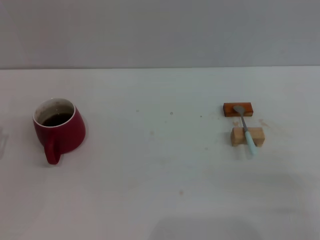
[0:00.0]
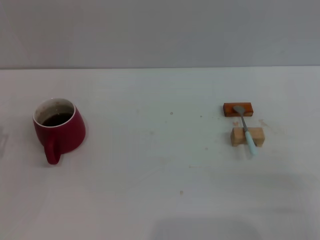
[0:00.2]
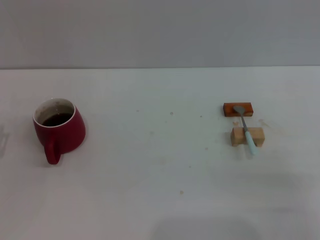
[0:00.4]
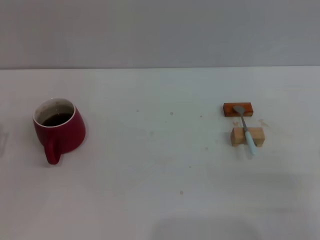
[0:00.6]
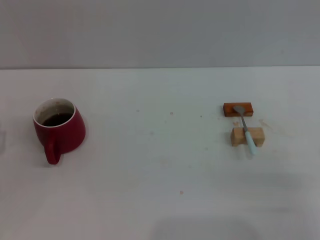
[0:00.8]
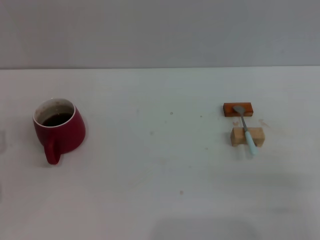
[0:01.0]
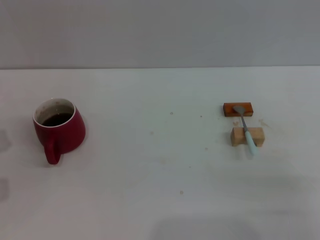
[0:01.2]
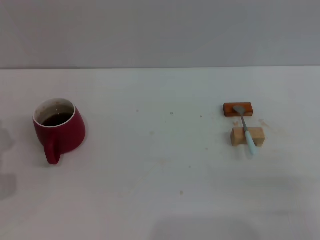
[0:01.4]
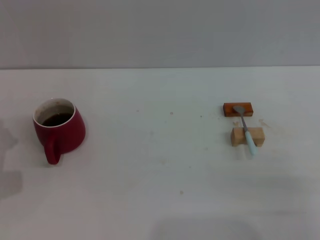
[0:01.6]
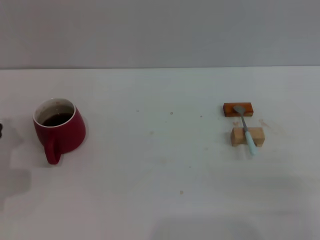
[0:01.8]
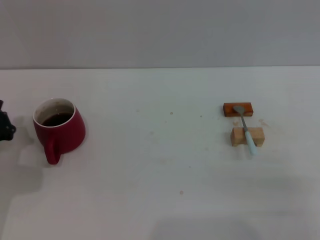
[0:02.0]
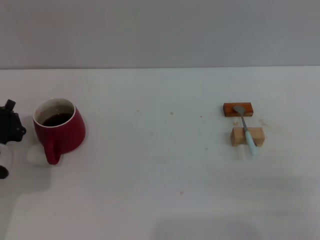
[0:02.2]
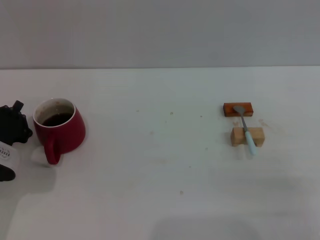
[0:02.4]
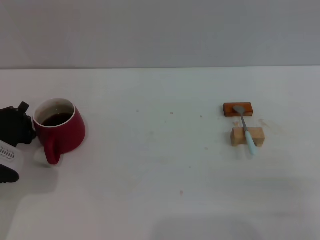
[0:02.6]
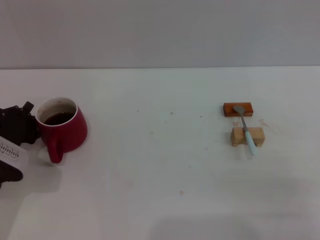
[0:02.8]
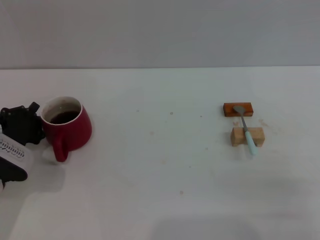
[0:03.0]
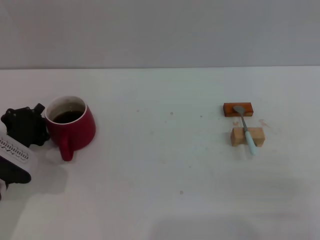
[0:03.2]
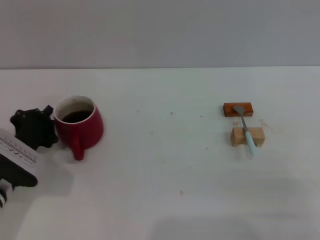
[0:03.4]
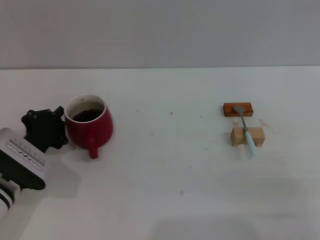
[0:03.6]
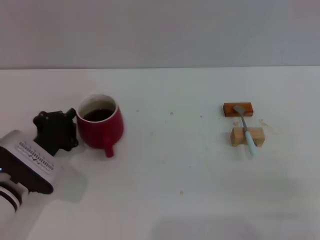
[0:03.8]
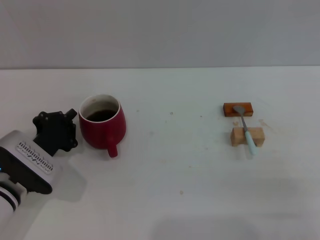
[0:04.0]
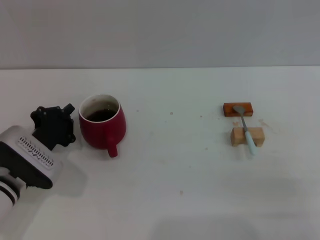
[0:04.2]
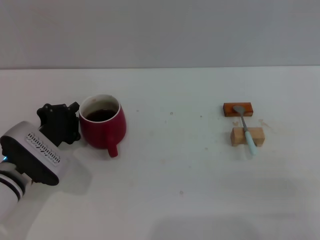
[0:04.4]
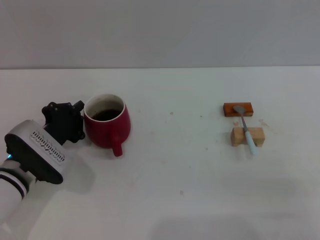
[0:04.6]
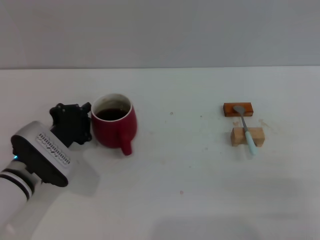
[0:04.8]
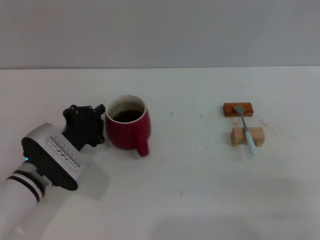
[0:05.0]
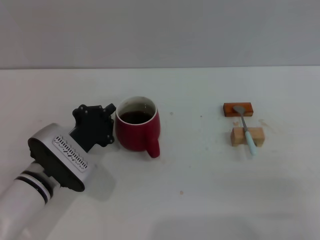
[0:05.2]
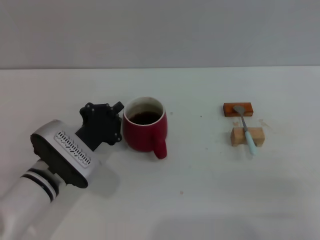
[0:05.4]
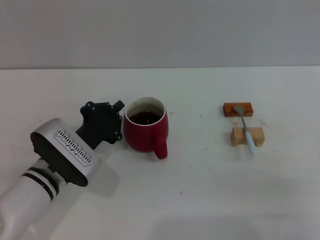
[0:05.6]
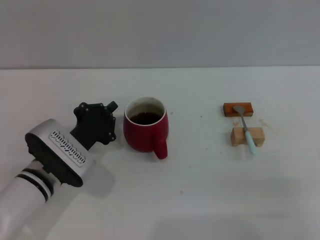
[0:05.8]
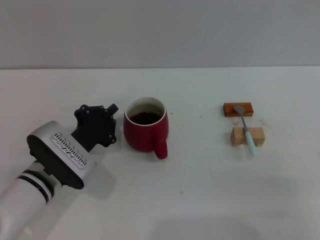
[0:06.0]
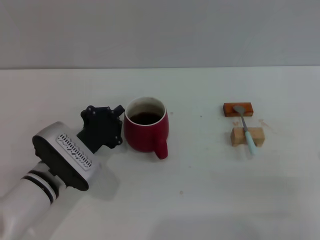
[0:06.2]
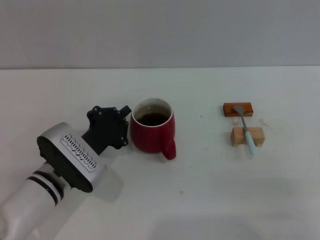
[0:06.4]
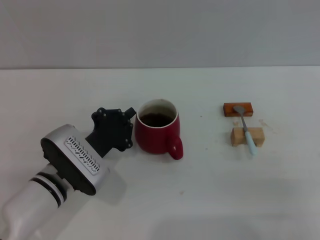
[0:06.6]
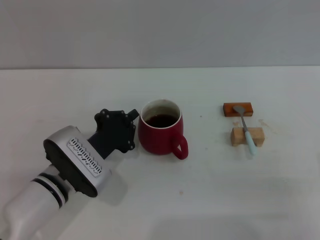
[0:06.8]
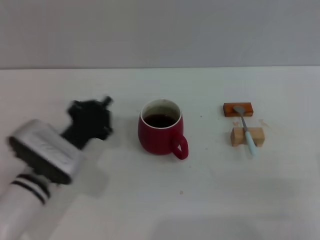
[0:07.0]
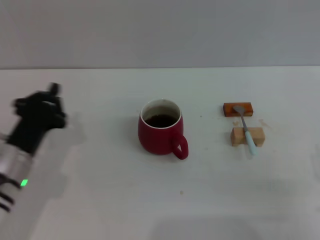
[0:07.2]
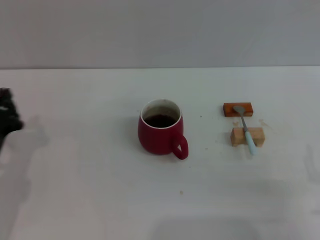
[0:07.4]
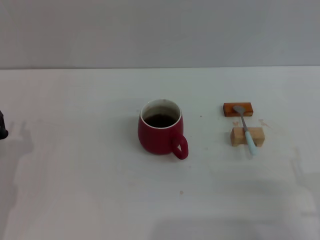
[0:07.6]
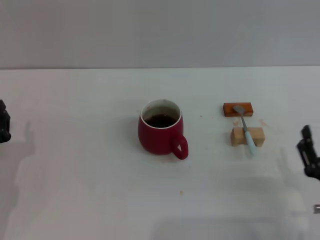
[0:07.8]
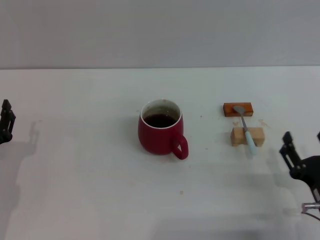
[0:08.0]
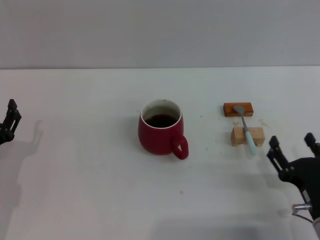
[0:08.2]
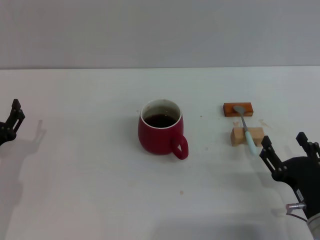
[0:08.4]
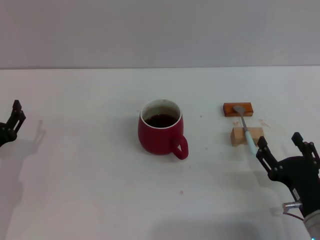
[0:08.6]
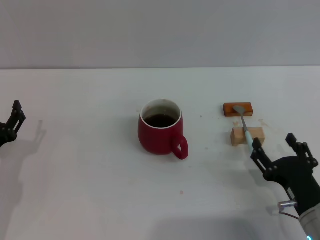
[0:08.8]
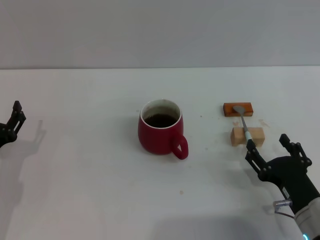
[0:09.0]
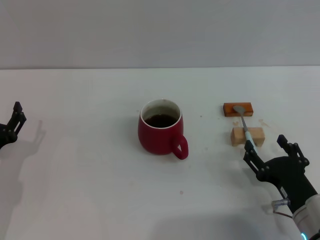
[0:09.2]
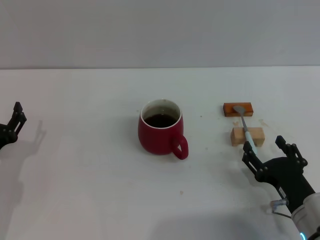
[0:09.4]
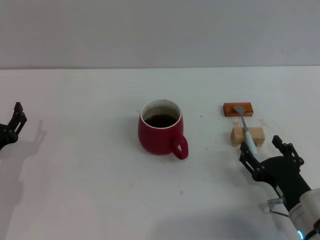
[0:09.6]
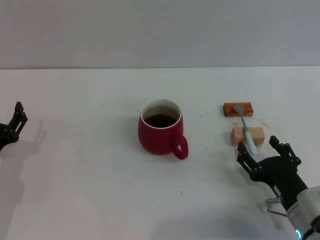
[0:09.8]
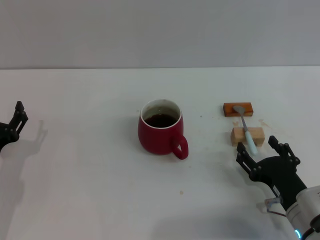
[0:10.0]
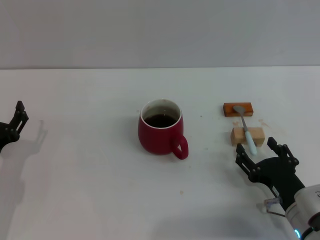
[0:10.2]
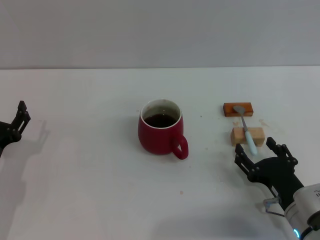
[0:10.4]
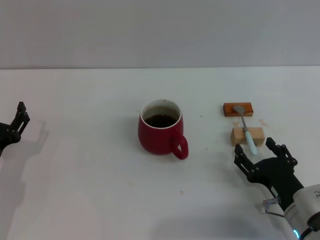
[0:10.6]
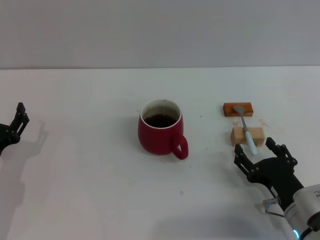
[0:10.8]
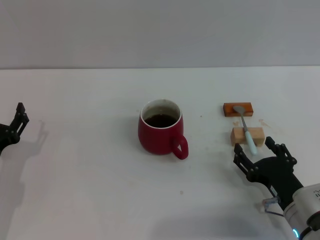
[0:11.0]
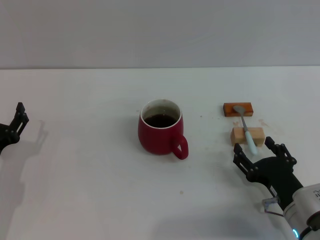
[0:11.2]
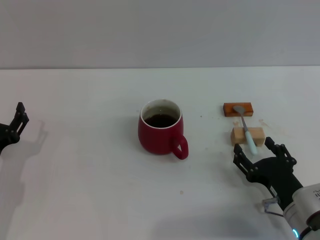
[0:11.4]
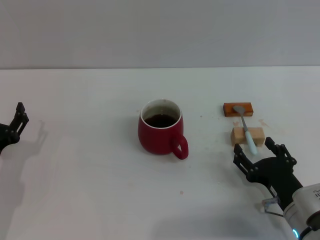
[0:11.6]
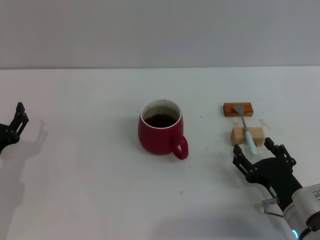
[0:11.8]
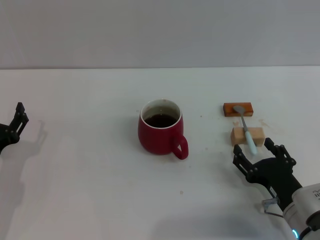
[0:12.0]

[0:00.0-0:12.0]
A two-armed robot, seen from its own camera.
Task of the whole recording: Move the red cup to the center, lift the blue spoon, stir it three times in the cup, and put the spoon into the cup.
Step, 0:00.0 to 0:07.0: Move the cup with coffee to the center of view with the left gripper.
0:03.0 to 0:04.4: The grippers move only a little.
0:04.4 to 0:06.0: The grippers stay close to where they were, moving slightly.
0:06.0 to 0:07.6: The left gripper goes some 10 cm to the left and backward.
0:07.6 to 0:09.0: The right gripper shifts by some 5 cm; the left gripper opens its fingers.
0:09.0 to 0:10.4: The grippers make only small movements.
0:10.4 to 0:12.0: The two grippers keep their place.

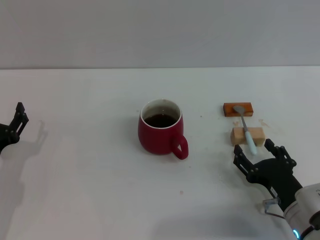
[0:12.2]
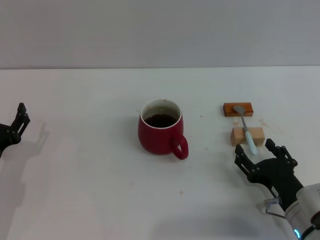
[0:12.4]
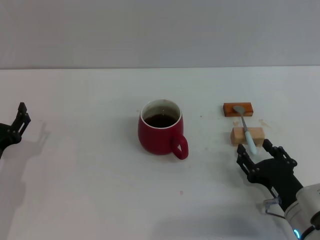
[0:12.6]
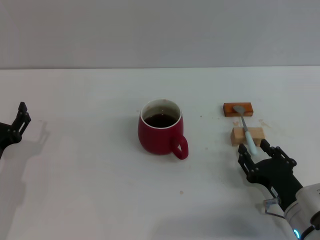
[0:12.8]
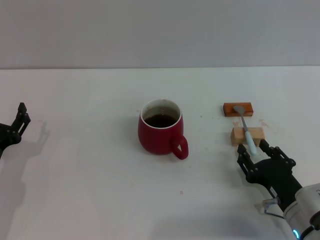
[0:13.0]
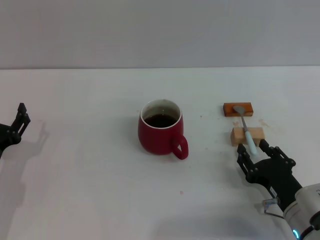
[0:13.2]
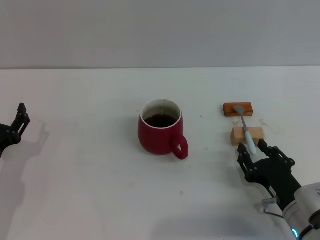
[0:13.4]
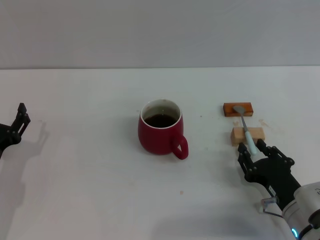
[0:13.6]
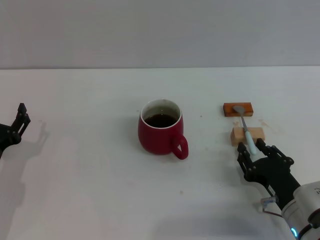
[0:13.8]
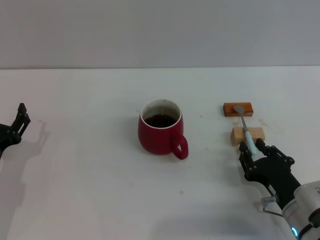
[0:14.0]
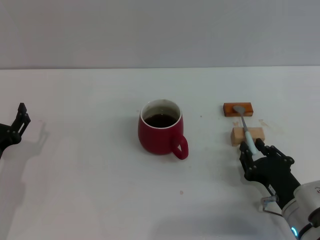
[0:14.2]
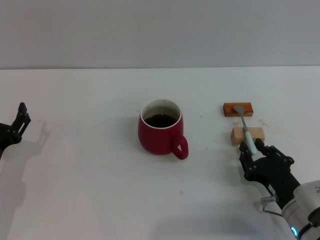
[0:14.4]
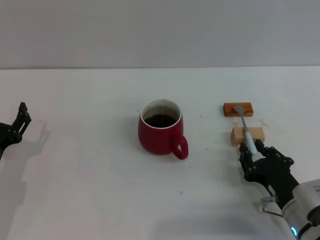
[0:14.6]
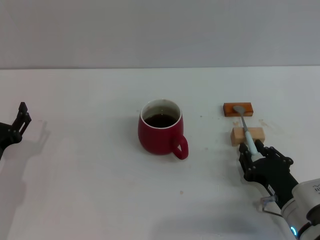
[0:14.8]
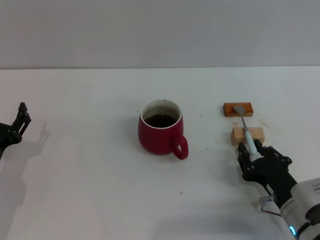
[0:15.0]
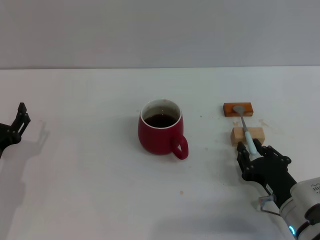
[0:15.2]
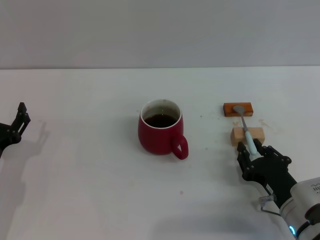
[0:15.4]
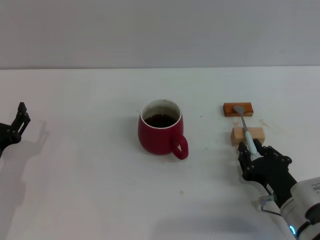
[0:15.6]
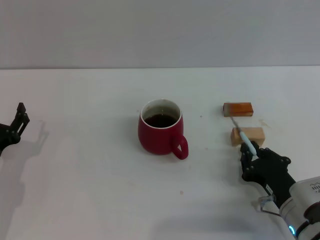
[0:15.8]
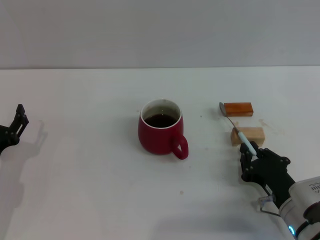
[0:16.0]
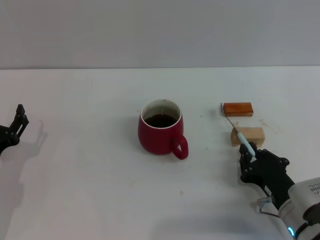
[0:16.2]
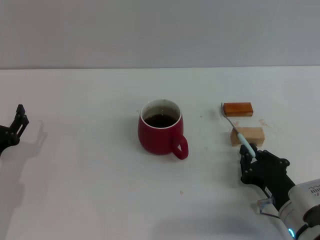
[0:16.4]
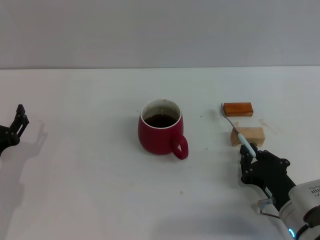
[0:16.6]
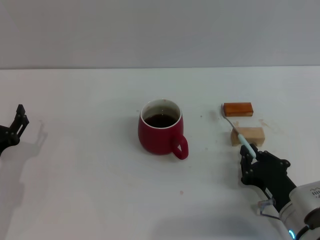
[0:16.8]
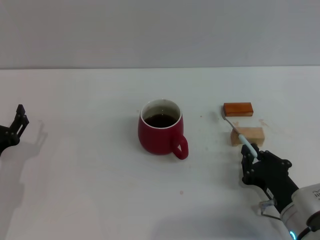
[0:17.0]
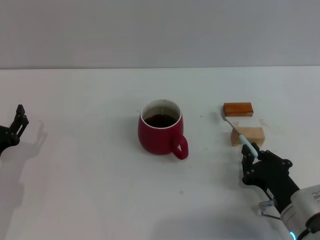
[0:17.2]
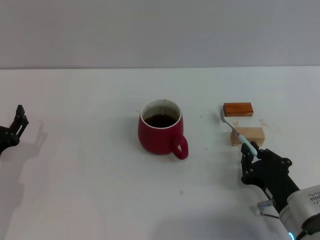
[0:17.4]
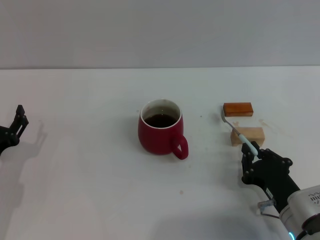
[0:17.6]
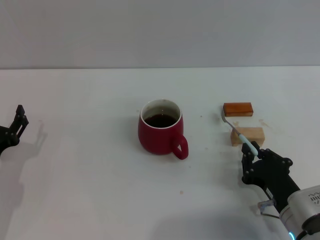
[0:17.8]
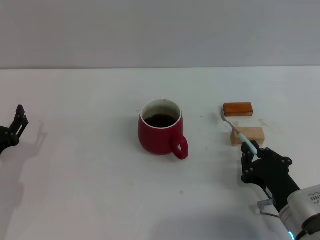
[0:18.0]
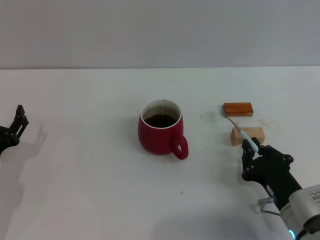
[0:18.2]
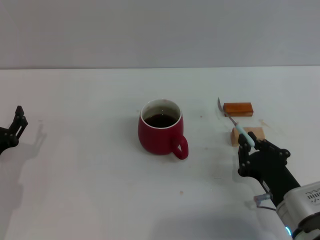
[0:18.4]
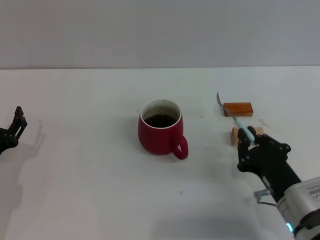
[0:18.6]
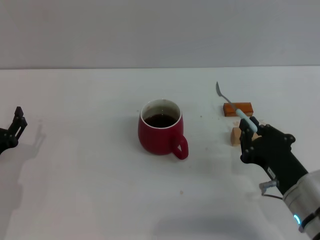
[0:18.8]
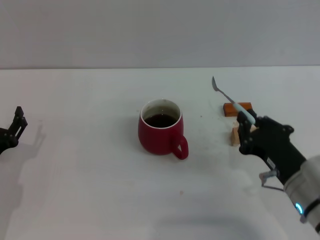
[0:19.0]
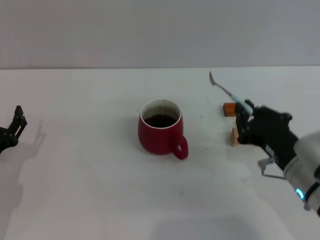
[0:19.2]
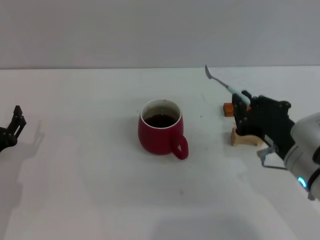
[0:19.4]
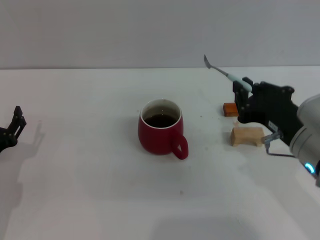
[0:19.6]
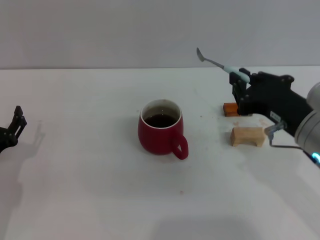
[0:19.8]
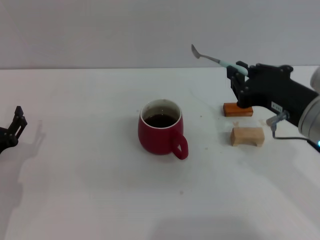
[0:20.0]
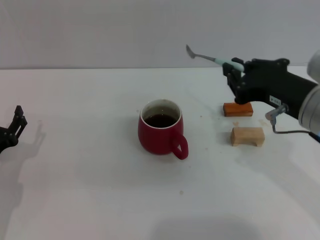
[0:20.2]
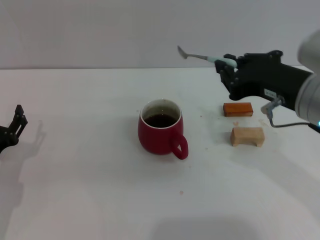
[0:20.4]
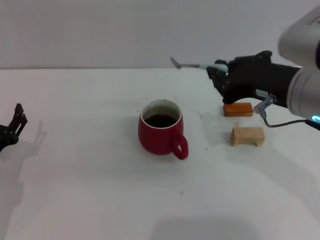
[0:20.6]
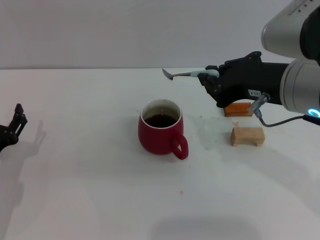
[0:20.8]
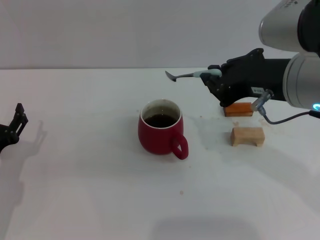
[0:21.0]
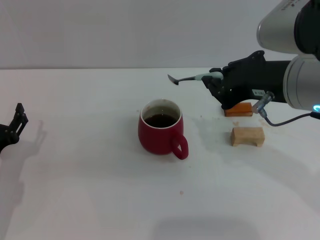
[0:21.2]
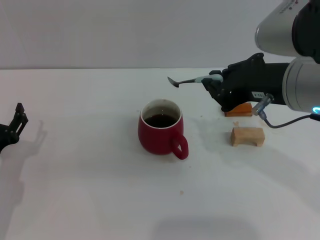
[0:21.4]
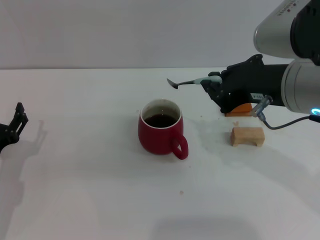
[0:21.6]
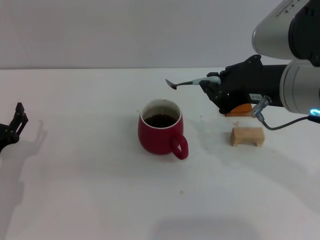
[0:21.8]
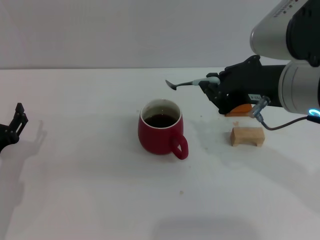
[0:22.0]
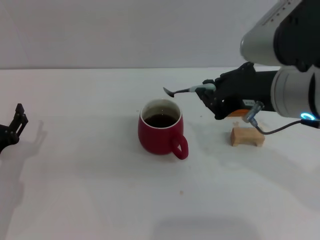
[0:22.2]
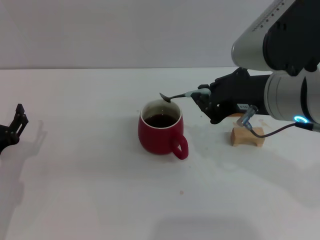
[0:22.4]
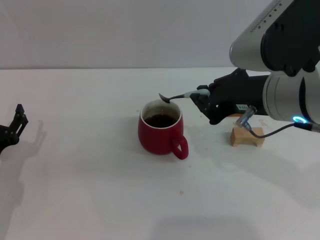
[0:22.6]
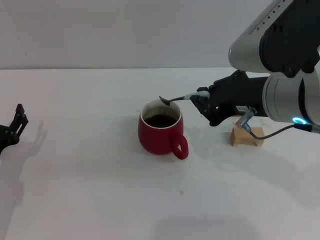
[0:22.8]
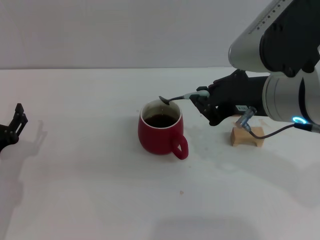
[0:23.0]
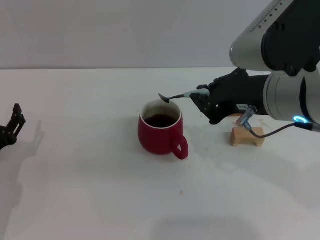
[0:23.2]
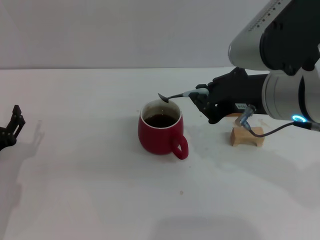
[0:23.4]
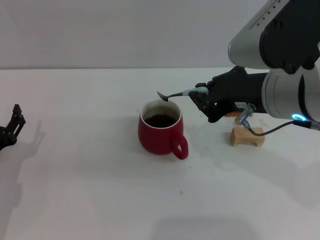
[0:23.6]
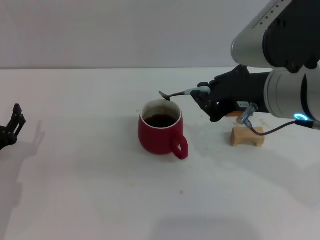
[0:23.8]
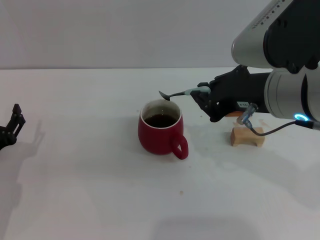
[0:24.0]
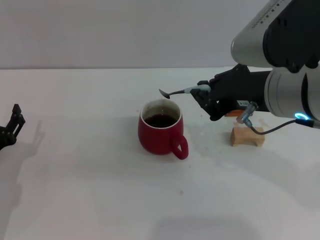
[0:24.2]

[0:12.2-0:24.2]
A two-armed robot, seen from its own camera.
Task of the whole recording: Move the red cup to the center, lift the blue spoon, stir it three times in the cup, and put the spoon into the cup.
Step, 0:12.2 to 0:19.4: Pick up the spoon with the right gripper.
0:12.2 to 0:13.8: The right gripper closes its fingers.
0:13.8 to 0:18.2: Neither gripper changes place.
0:18.2 to 0:19.8: The right gripper shifts some 15 cm upward.
0:19.8 to 0:21.2: The right gripper goes approximately 10 cm upward.
0:21.2 to 0:22.6: There are only small adjustments of the grippers.
0:22.6 to 0:24.2: The two grippers keep their place.
